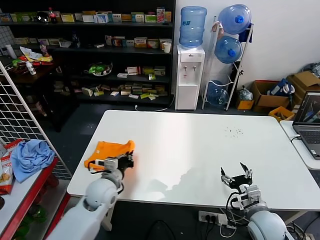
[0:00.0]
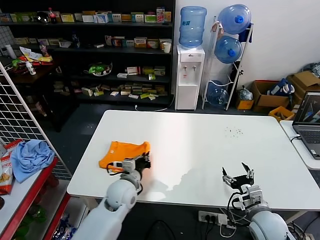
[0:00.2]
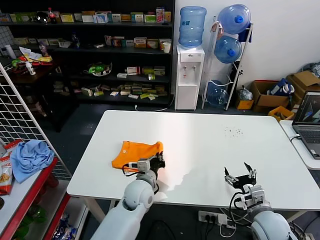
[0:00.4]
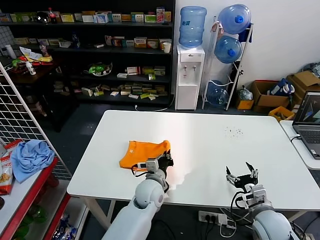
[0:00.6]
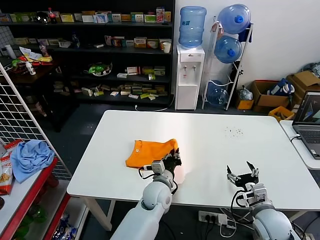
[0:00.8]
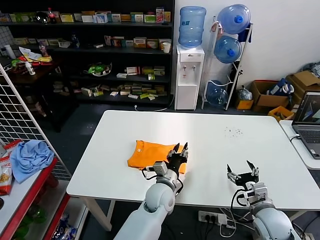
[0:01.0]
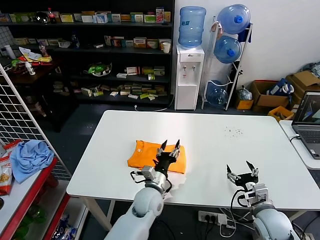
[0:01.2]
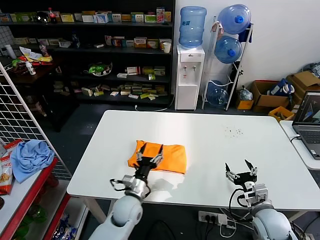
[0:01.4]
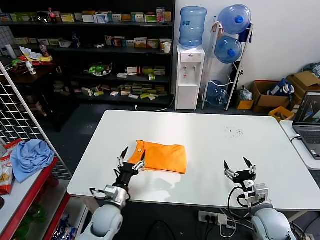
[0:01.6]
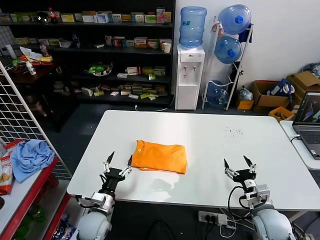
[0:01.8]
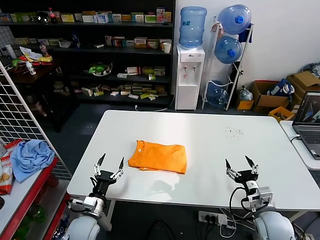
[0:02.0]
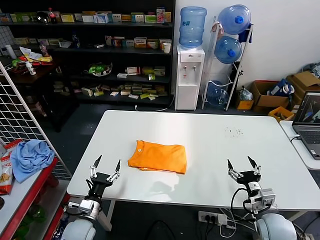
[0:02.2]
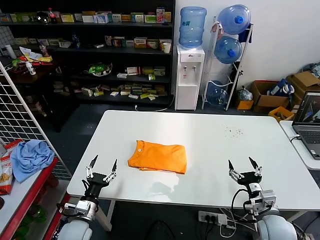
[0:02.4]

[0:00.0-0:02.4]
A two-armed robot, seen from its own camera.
Task of the whole recording: fold and organize the clothes.
0:00.0 to 0:01.2: The left gripper goes approximately 20 cm to the right, and opens.
0:01.2 to 0:02.4: The left gripper shifts approximately 25 cm to the left.

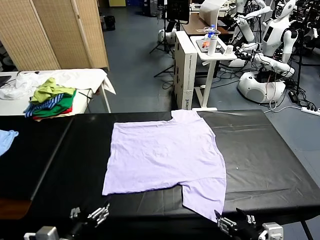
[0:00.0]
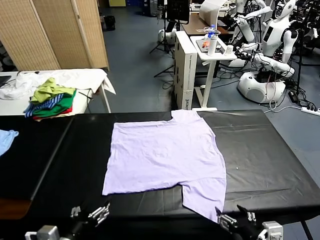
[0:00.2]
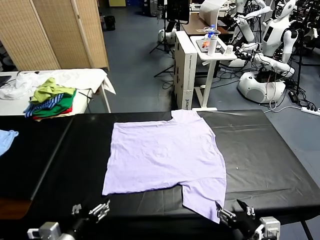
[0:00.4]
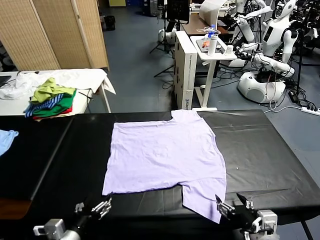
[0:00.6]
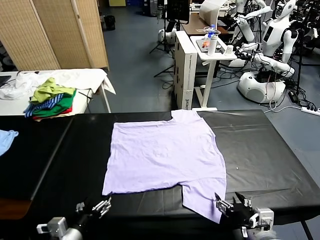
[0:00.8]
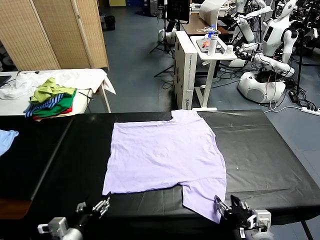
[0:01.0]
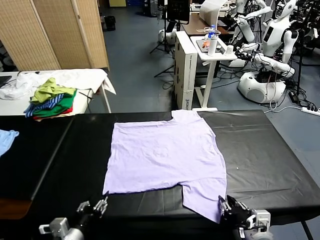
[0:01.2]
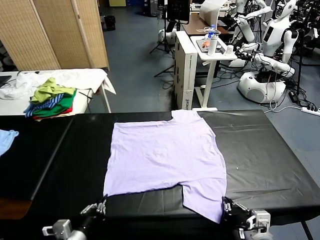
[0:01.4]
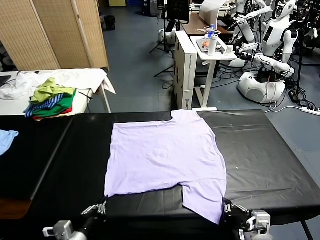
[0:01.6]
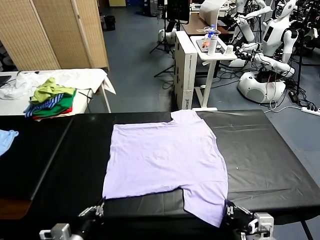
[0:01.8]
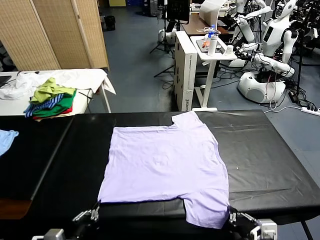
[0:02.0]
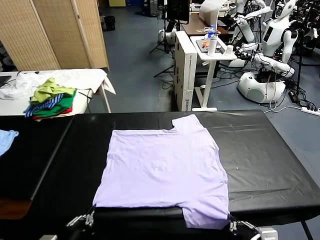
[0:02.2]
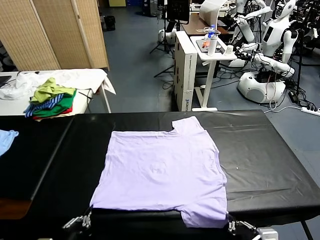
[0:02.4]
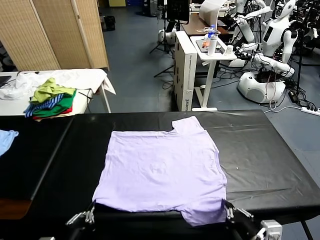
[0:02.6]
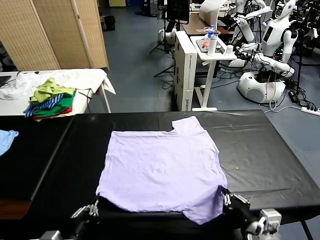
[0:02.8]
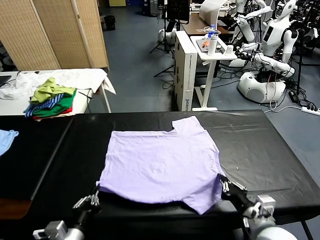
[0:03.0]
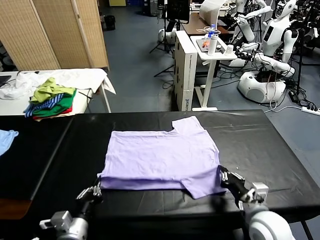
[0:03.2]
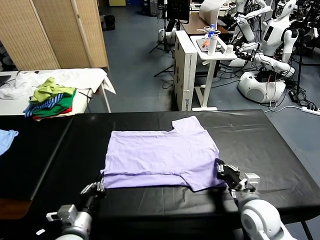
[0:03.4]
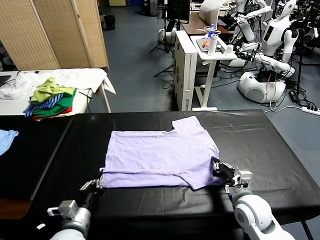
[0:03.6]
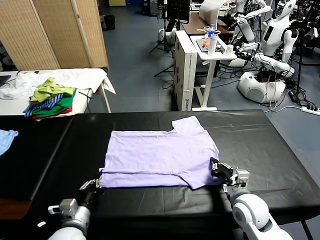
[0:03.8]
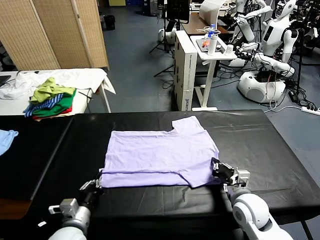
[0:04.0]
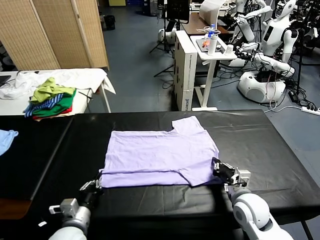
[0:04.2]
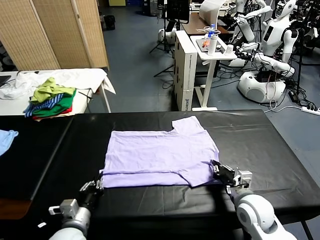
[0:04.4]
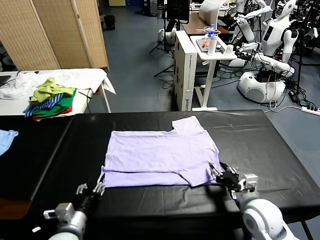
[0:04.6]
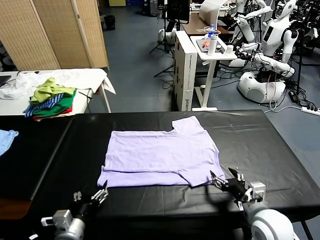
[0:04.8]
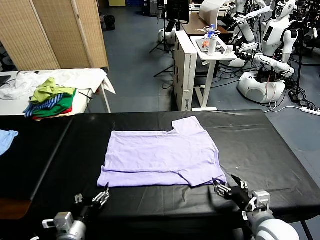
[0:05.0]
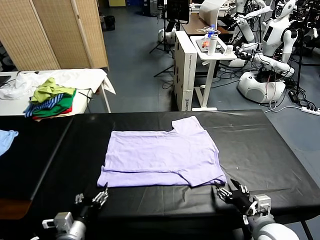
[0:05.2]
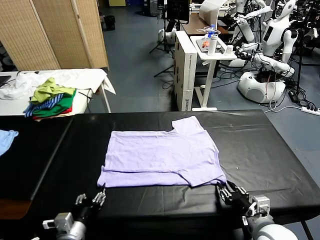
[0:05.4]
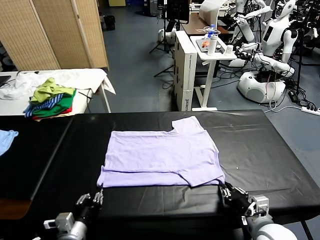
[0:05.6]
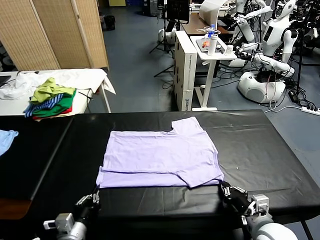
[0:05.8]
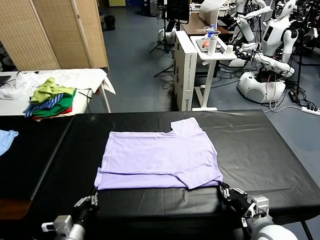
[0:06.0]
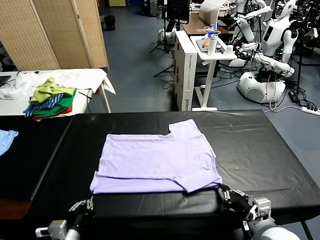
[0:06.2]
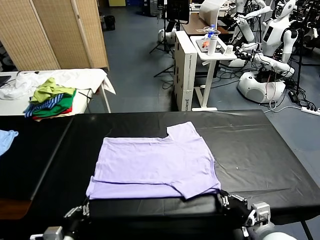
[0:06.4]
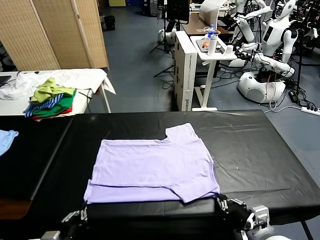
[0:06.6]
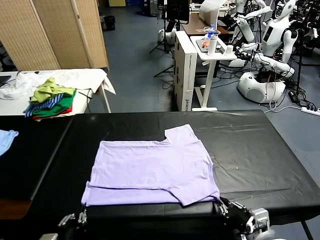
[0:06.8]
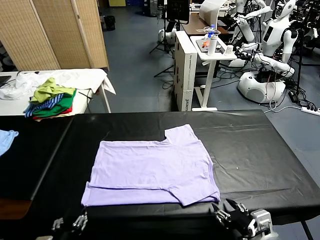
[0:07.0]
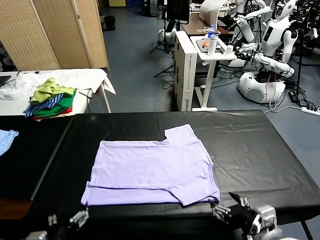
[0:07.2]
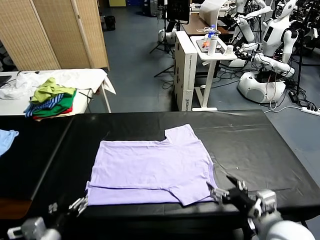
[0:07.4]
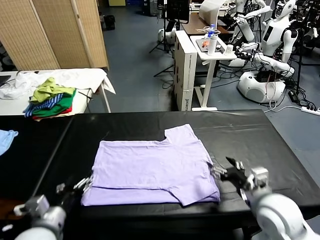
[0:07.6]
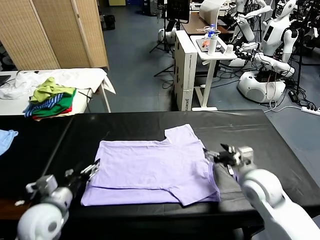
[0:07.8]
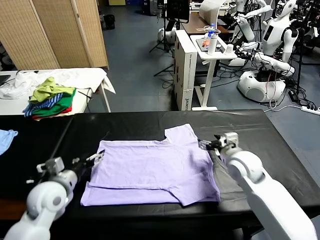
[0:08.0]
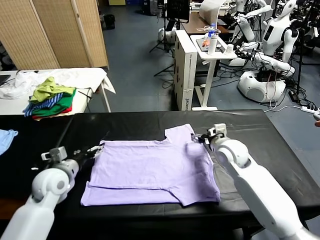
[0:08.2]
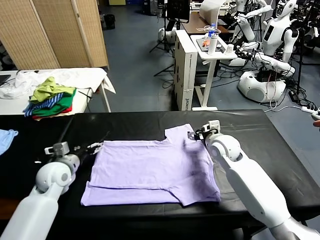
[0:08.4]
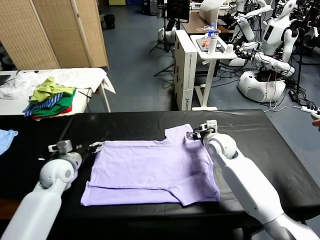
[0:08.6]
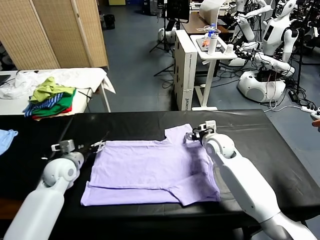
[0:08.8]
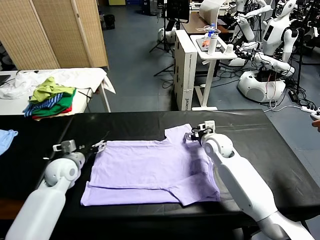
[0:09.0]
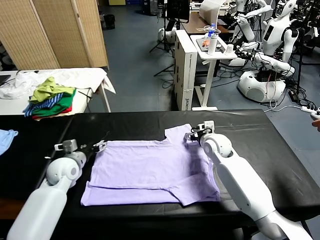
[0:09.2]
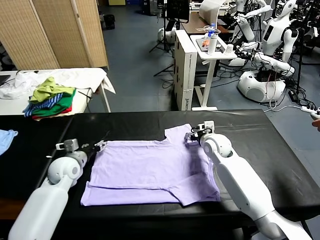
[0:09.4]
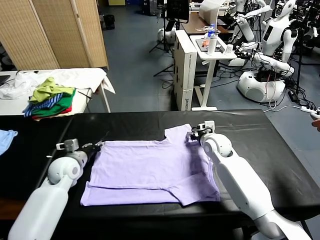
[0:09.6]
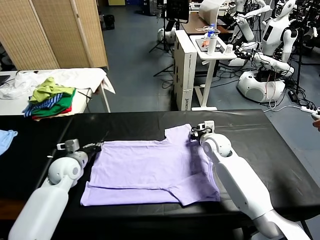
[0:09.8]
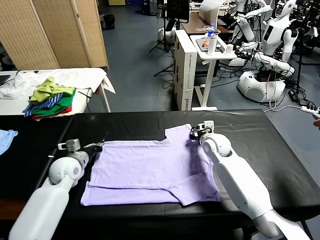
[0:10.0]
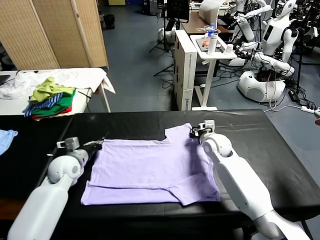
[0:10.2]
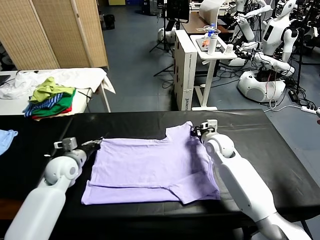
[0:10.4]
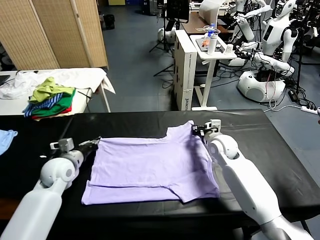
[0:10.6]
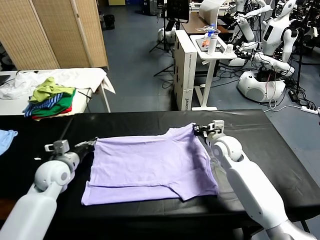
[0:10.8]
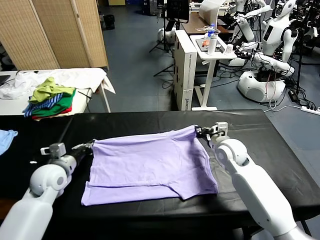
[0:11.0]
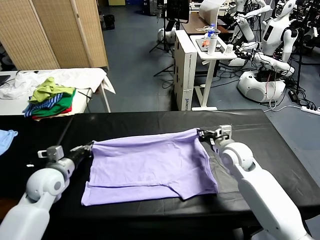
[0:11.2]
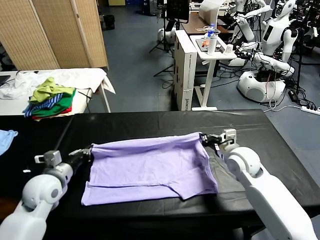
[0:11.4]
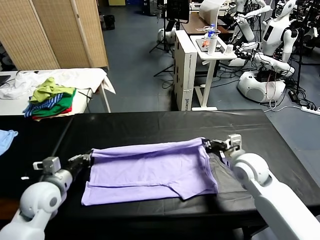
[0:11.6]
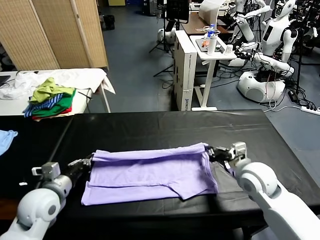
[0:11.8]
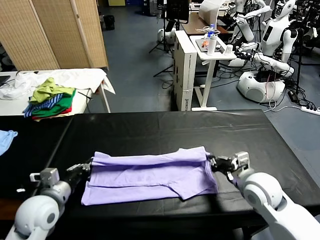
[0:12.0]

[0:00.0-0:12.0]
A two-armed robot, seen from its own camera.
Task of the whole recording: fold and organize the clothes.
Step, 0:00.0 to 0:01.8: use both grippers simultaneously to clamp the lower edge of the clothing fabric.
Step, 0:02.0 to 0:04.6: use both grippers to drag the lower edge of the fabric forward and fold it over the upper edge.
Step, 0:04.8 to 0:07.0: Drag the clothes downward with both gripper.
Step, 0:07.2 to 0:10.0: use both grippers simultaneously to clamp the upper edge of the clothing fabric.
0:01.6 to 0:03.0: The left gripper heads forward, covering roughly 5 cm, while the right gripper moves forward, about 15 cm.
0:03.0 to 0:04.4: The left gripper opens up. Meanwhile the right gripper heads backward, covering approximately 5 cm, and opens up.
0:04.4 to 0:06.0: The left gripper closes up; the right gripper changes place by roughly 5 cm, and closes.
0:06.0 to 0:07.6: Both grippers travel together forward, approximately 25 cm. The left gripper opens its fingers. The right gripper opens.
0:07.6 to 0:09.0: The right gripper goes about 5 cm forward, and closes its fingers. Meanwhile the left gripper goes about 10 cm forward, and closes up.
0:09.0 to 0:10.4: The right gripper travels backward by approximately 5 cm, and closes, while the left gripper moves some 5 cm, and closes up.
0:10.4 to 0:12.0: Both grippers travel together backward, about 15 cm.

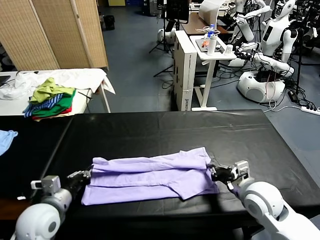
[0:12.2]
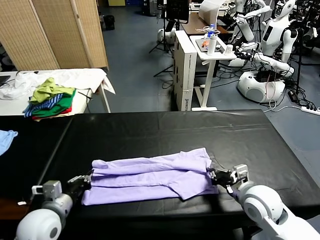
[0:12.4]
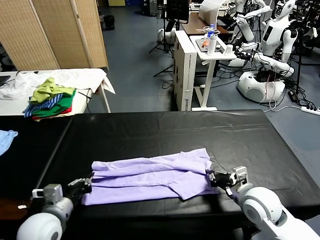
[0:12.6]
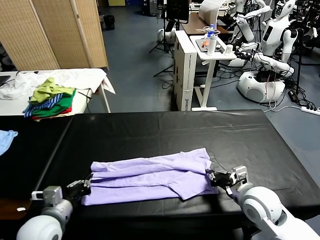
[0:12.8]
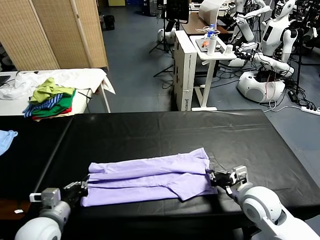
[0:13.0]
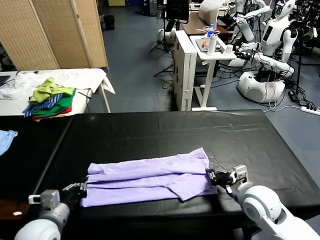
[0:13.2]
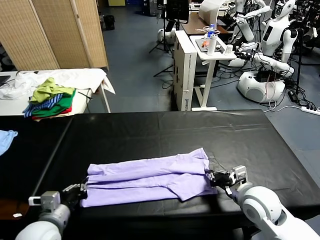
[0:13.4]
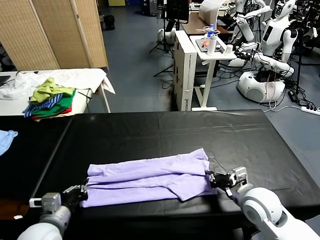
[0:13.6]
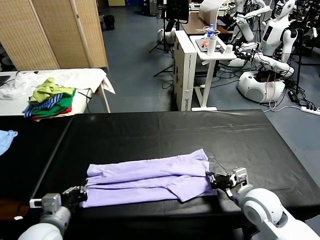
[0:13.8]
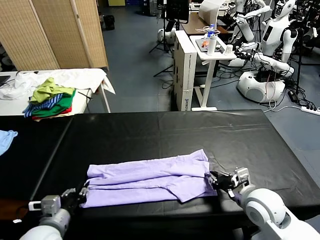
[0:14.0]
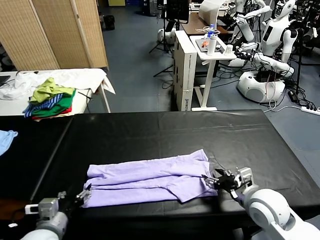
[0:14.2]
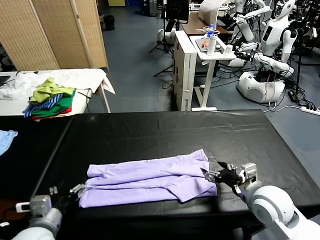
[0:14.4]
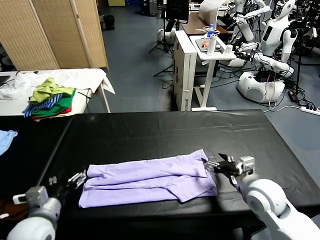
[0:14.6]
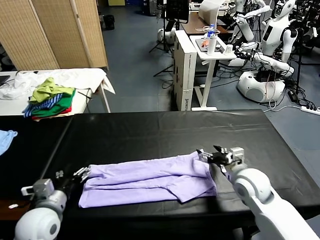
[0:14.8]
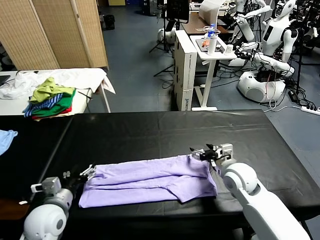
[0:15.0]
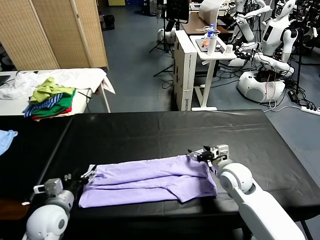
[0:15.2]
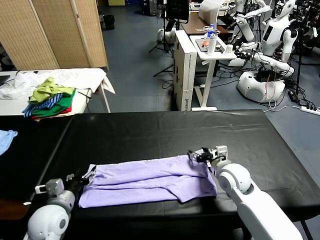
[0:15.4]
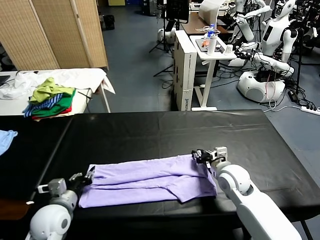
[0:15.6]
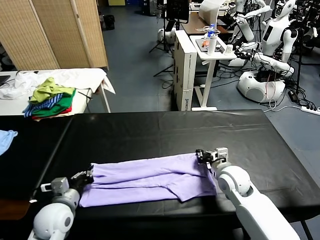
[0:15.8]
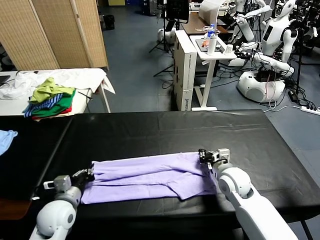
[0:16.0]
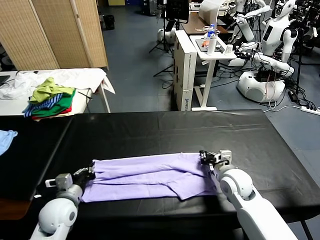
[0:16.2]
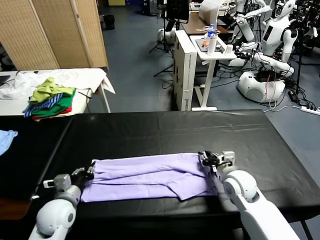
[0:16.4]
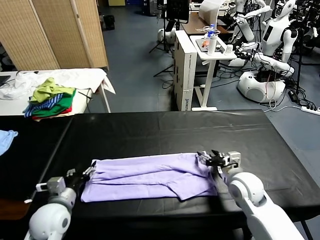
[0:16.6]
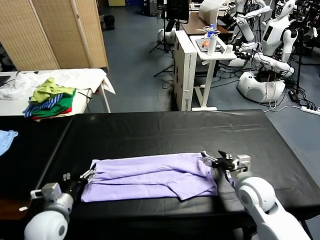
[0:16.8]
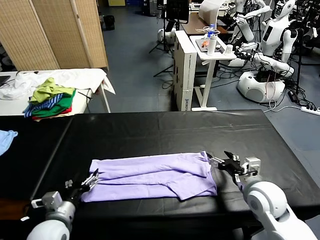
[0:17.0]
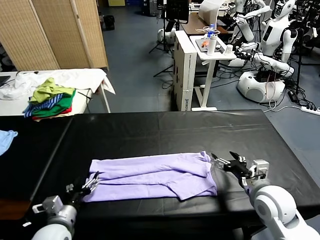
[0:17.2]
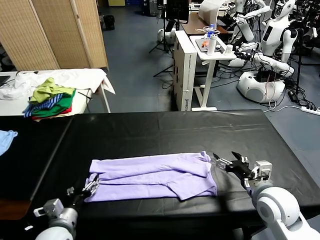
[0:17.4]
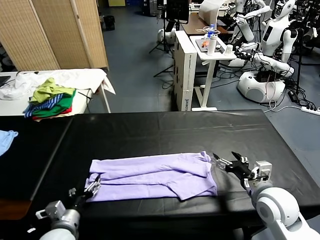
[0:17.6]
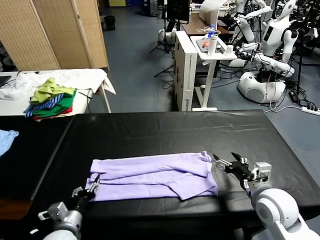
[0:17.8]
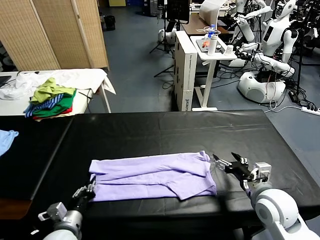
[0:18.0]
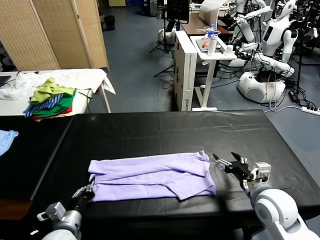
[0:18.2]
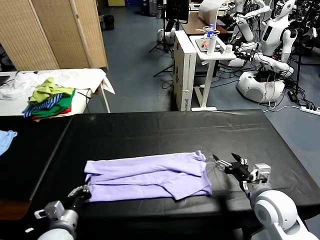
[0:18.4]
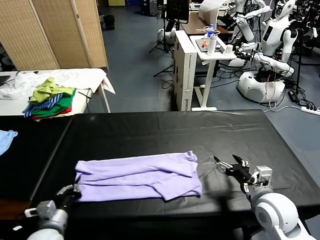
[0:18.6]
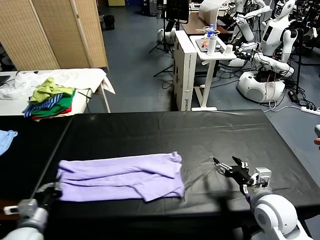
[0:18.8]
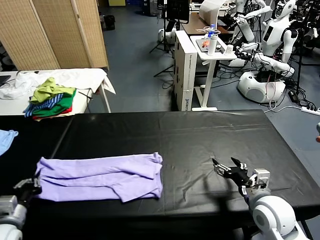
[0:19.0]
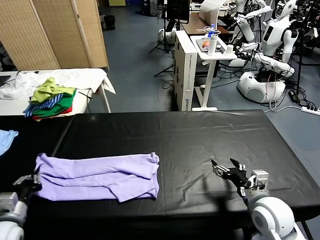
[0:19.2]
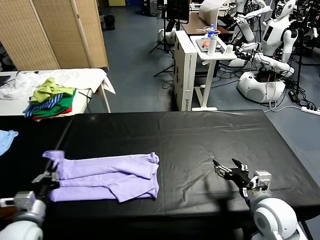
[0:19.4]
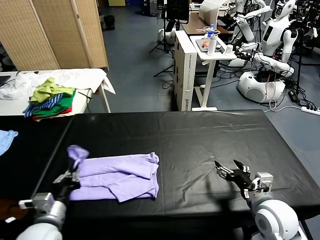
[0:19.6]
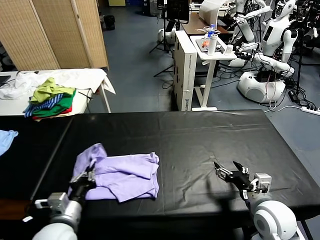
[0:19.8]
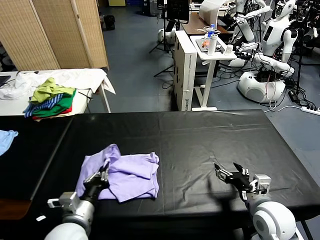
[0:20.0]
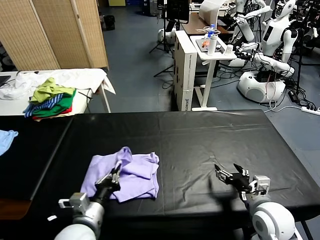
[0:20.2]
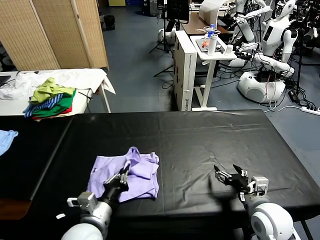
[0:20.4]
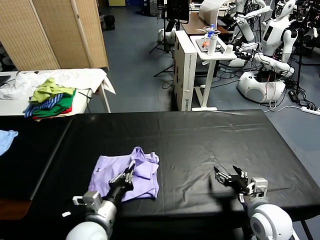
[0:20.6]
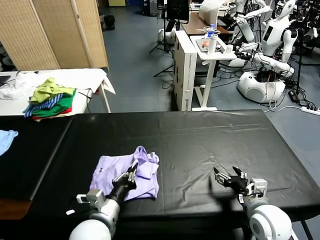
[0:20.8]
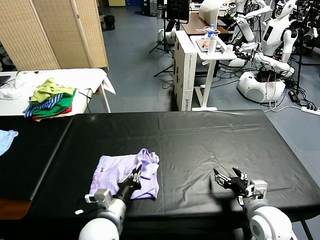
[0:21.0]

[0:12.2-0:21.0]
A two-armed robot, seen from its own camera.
Task of the whole recording: fold and organize the clothes.
Step, 0:12.2 to 0:14.2: use both grippers to drag the upper edge of the fabric backward and fold it over the lower edge.
Step, 0:14.4 to 0:18.2: use the left gripper to clamp the left edge of the fabric.
0:12.2 to 0:13.6: The right gripper opens its fingers, while the left gripper opens.
0:13.6 to 0:15.2: The two grippers go some 10 cm forward and downward. The right gripper closes up, while the left gripper closes up.
0:15.2 to 0:16.6: The left gripper travels backward by approximately 5 cm, and opens. Meanwhile the right gripper shifts approximately 15 cm backward, to the right and upward, and opens.
0:16.6 to 0:18.0: The left gripper heads to the left, covering about 10 cm, and closes its fingers.
0:18.0 to 0:19.6: The left gripper moves to the right, roughly 20 cm.
0:19.6 to 0:21.0: The right gripper shifts some 5 cm to the left. The left gripper opens its fingers.
